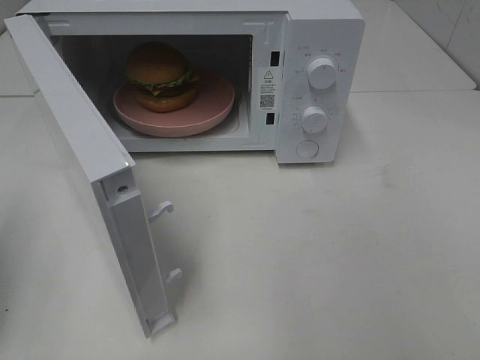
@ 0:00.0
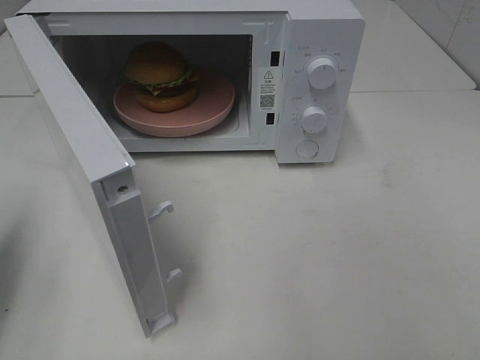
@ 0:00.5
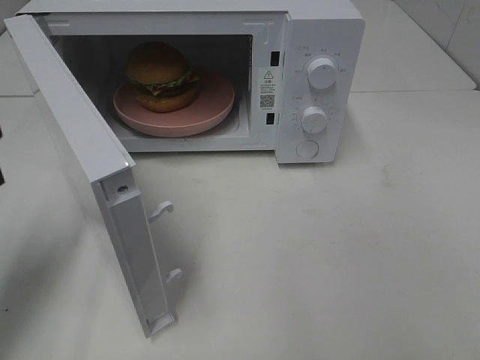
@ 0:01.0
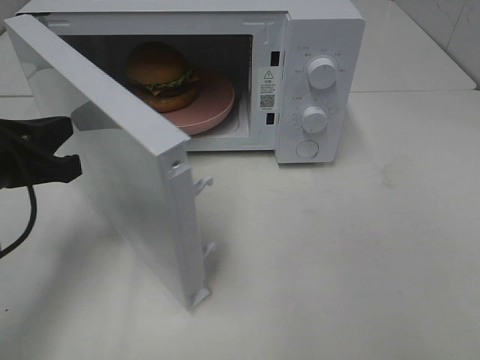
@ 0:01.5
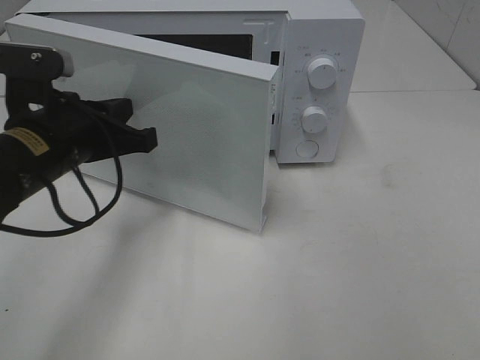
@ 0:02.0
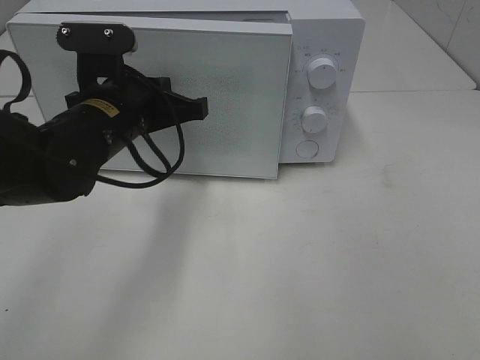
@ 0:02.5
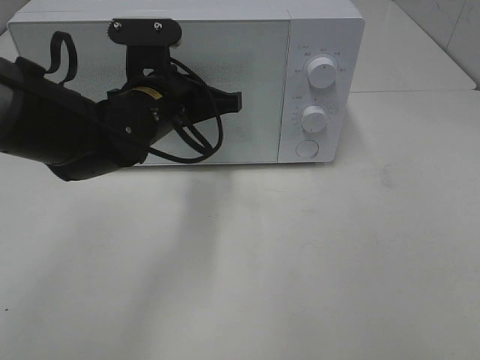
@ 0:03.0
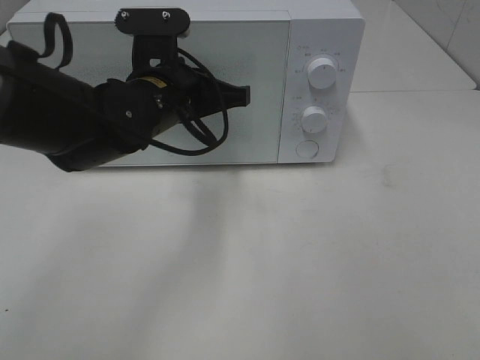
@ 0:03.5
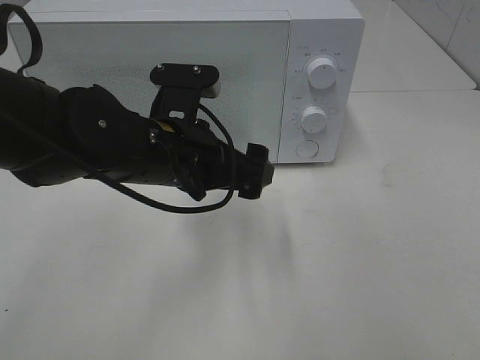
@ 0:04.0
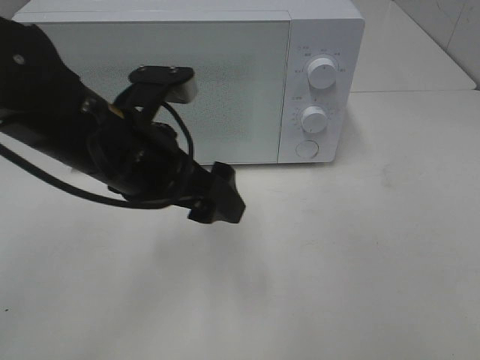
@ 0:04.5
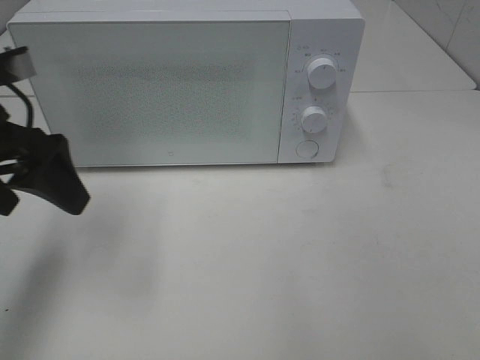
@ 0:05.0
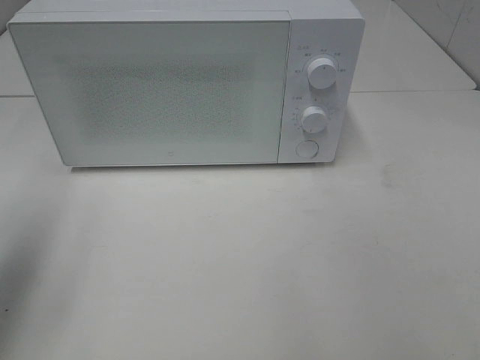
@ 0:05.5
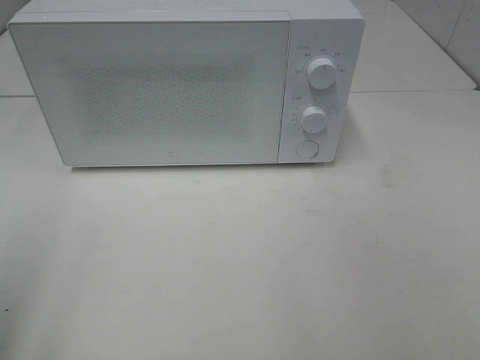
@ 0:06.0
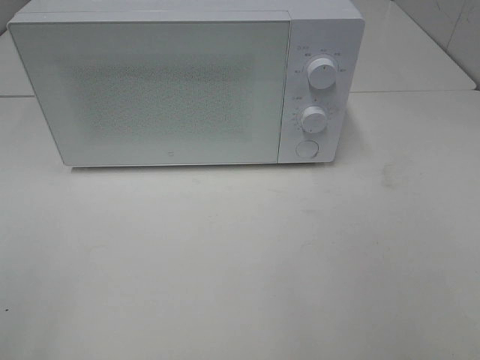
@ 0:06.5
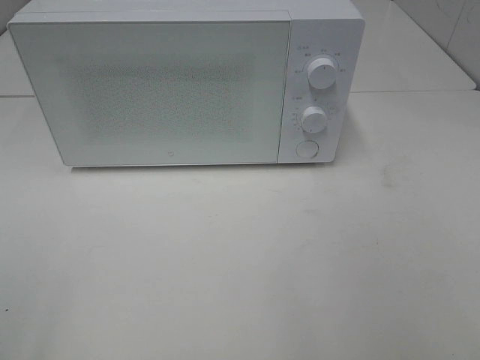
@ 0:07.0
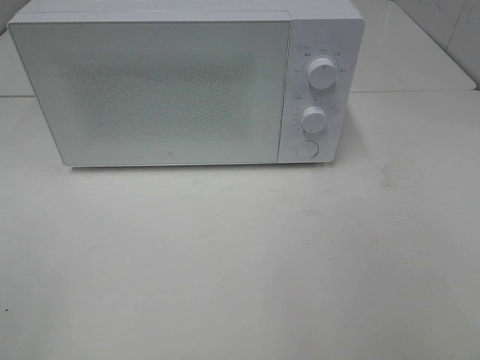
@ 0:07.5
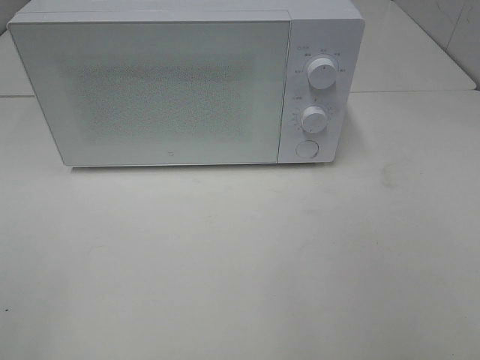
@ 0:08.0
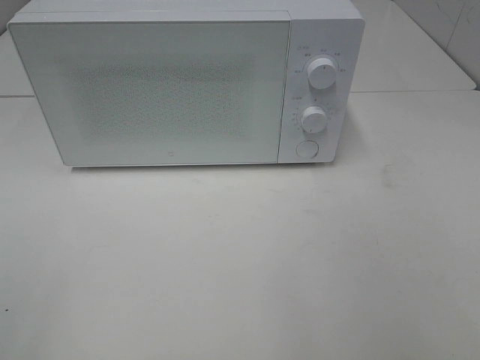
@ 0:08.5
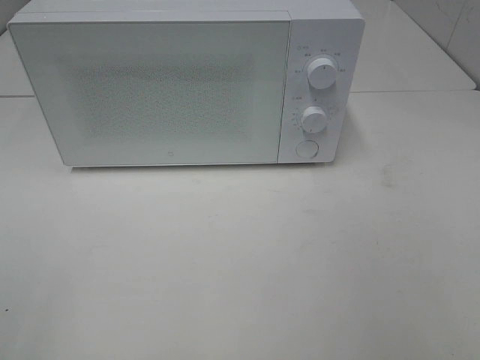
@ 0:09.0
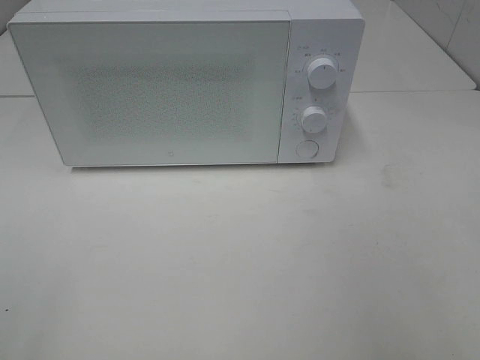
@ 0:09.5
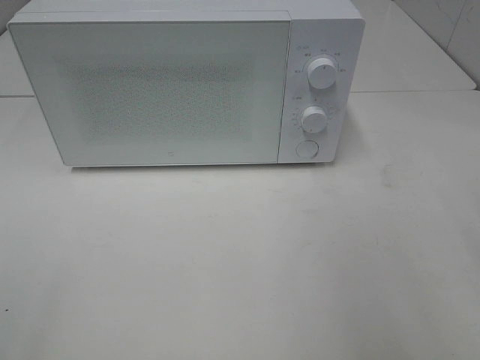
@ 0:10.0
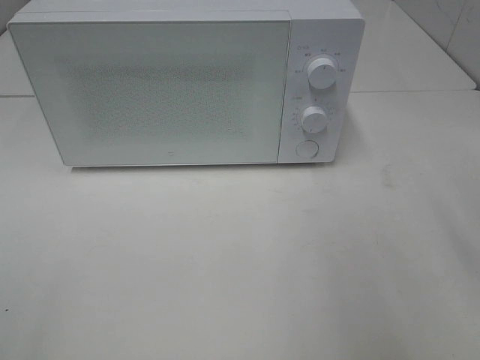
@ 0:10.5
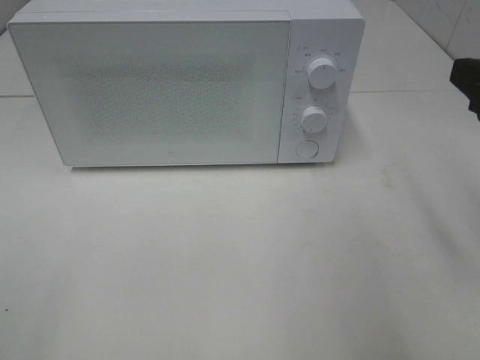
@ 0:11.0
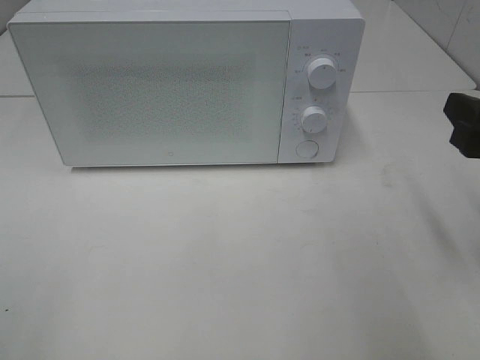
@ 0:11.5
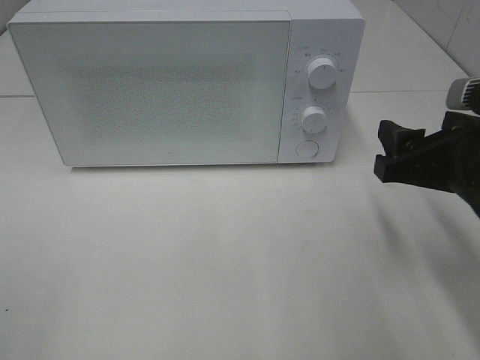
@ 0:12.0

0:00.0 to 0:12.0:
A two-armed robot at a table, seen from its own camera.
Task of the whole recording: Heat the burger.
Step, 0:00.0 to 0:04.0: Left hand: close the microwave door.
0:00.0 to 0:02.0: The left gripper is displaced to the right, forward and downward by roughly 25 cm.
0:02.0 to 0:04.0: The left gripper shifts roughly 10 cm to the right, and opens up.
0:04.0 to 0:06.0: The left gripper moves to the left, backward and upward, roughly 35 cm.
0:10.0 to 0:12.0: The right gripper shifts about 15 cm downward, forward and to the left.

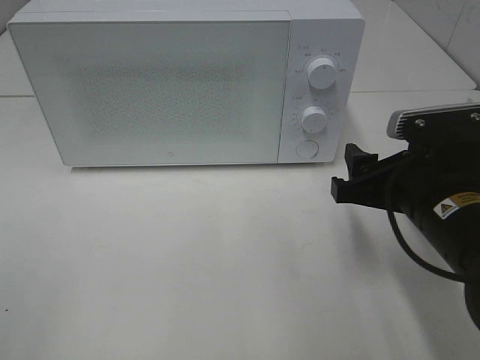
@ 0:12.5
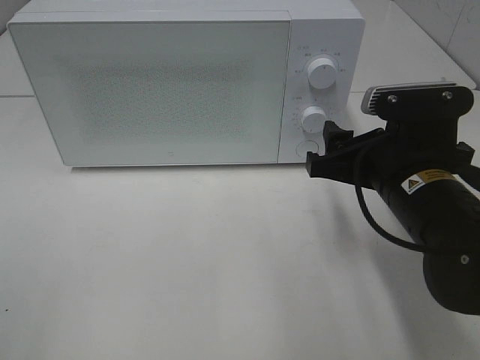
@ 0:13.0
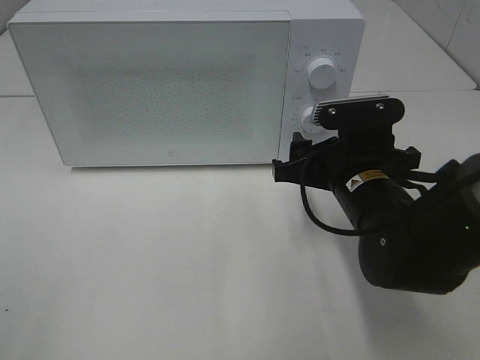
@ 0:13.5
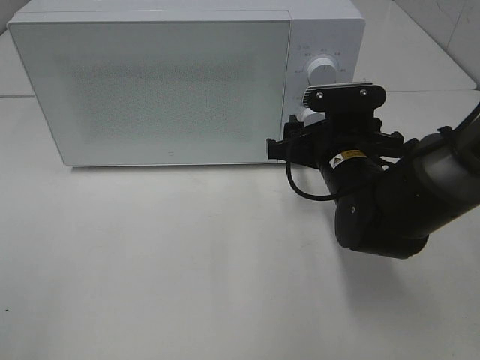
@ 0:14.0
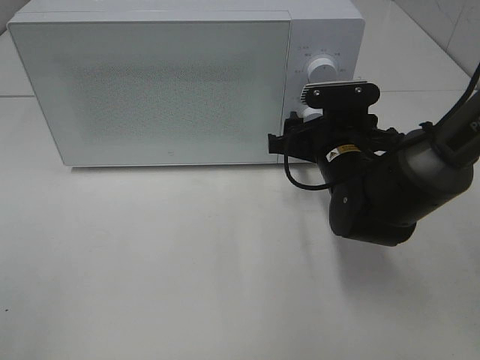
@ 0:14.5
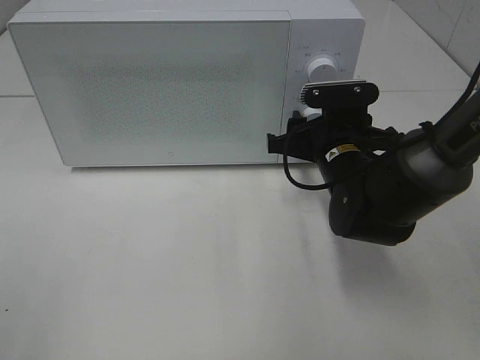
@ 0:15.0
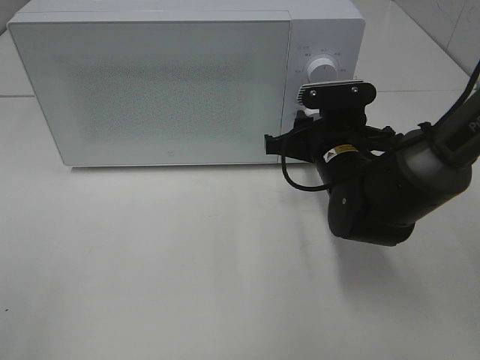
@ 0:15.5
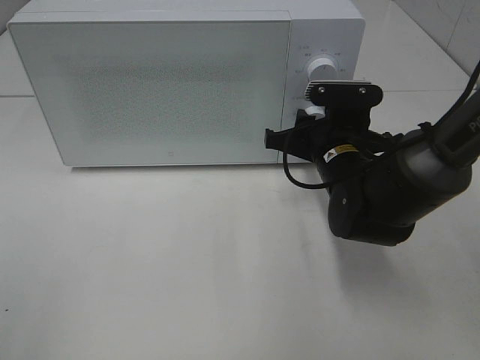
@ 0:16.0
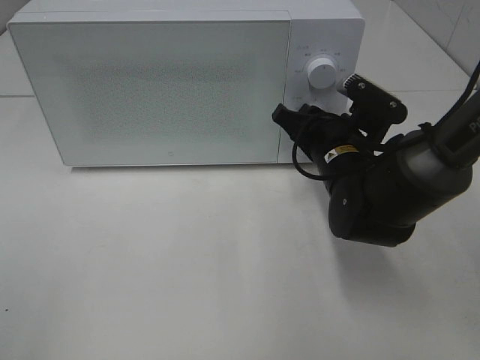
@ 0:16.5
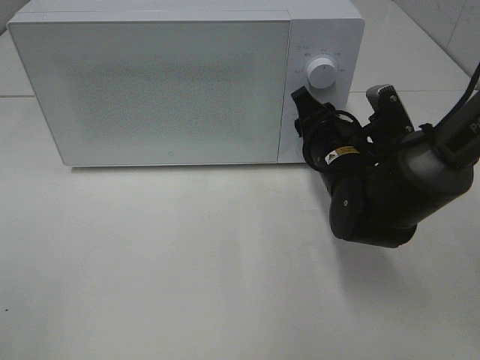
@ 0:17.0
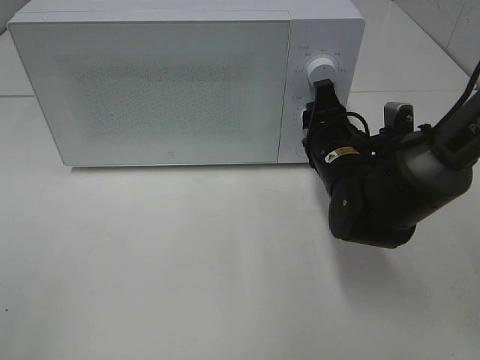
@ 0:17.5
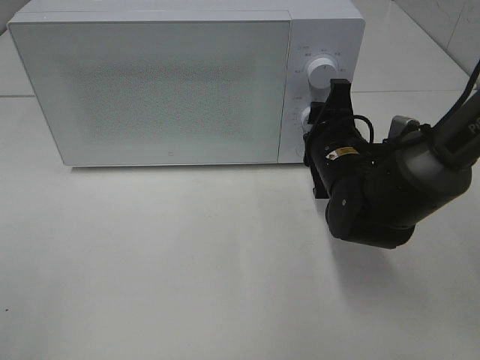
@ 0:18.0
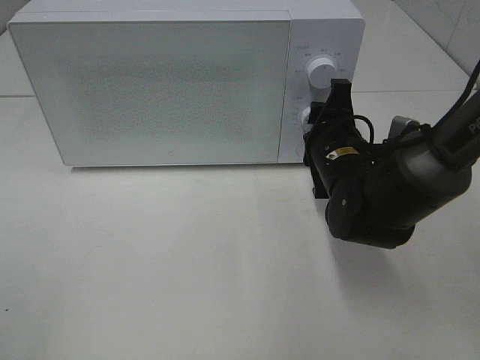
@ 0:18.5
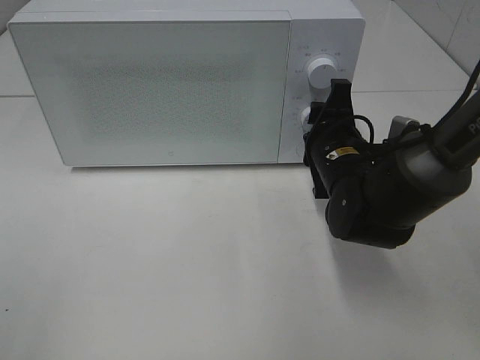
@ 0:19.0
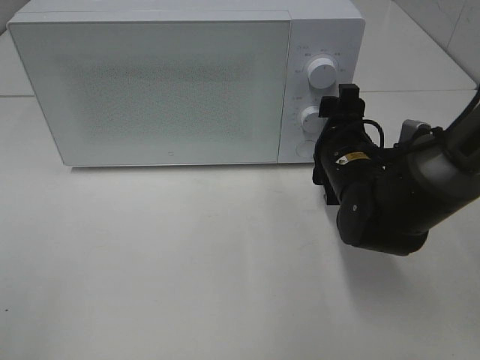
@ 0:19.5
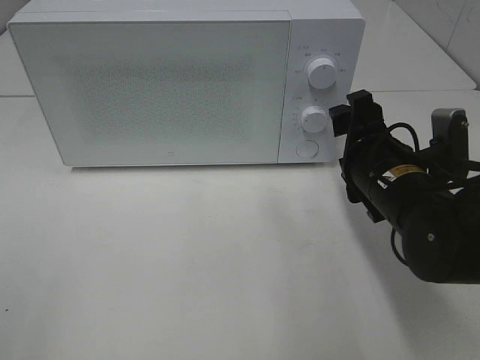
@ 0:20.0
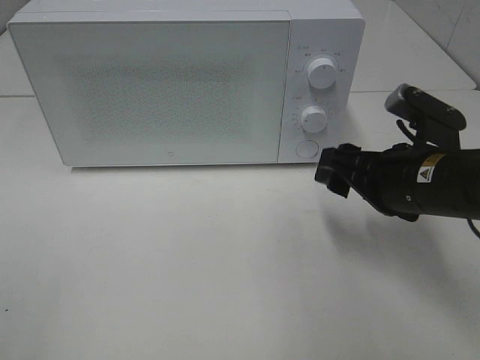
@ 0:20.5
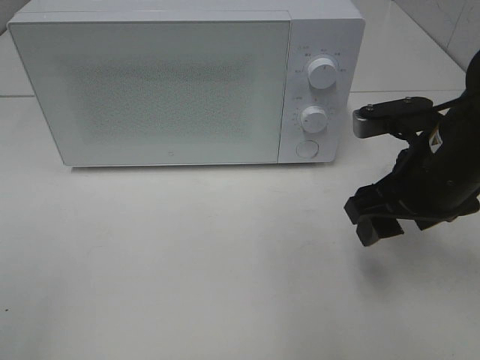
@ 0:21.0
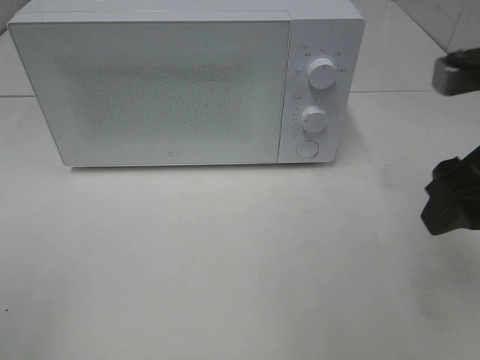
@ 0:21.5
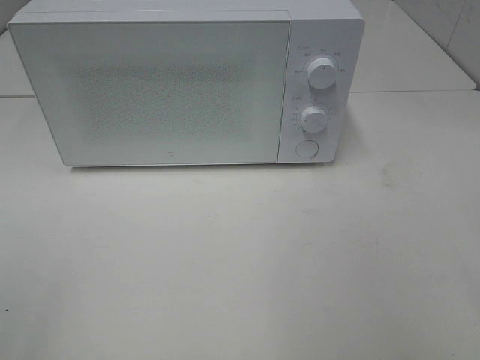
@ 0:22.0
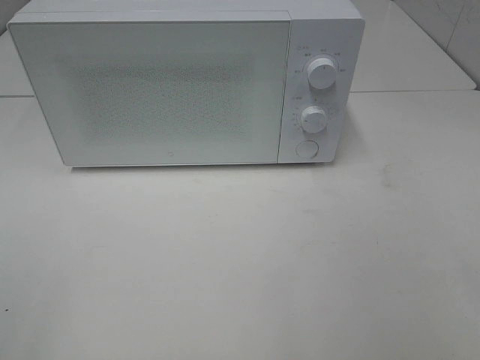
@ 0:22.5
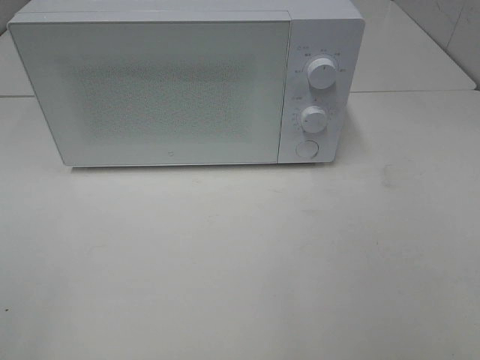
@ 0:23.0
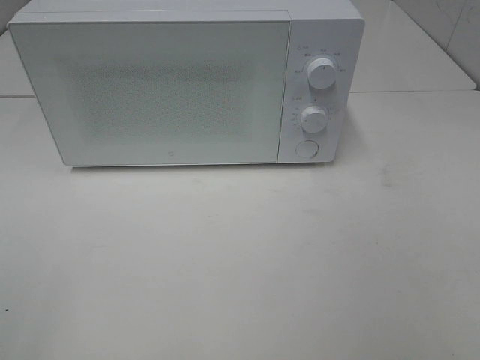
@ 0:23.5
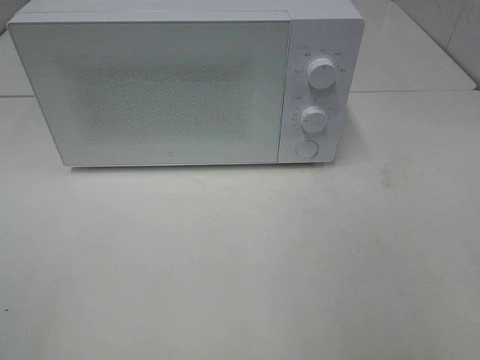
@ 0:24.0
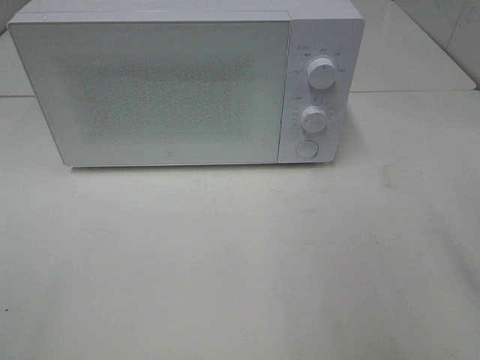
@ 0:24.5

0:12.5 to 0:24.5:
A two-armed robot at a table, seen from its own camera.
Task of the whole recording: Heat the burger.
Step, 0:12.5 to 0:19.5: Right hand: twist timer button.
0:12.5 to 0:14.5: The right gripper is displaced forward and to the left by approximately 15 cm.
0:18.5 to 0:20.5: The right gripper shifts about 10 cm backward and to the right.
0:20.5 to 0:22.5: The right gripper moves backward, upward and to the right, some 30 cm.

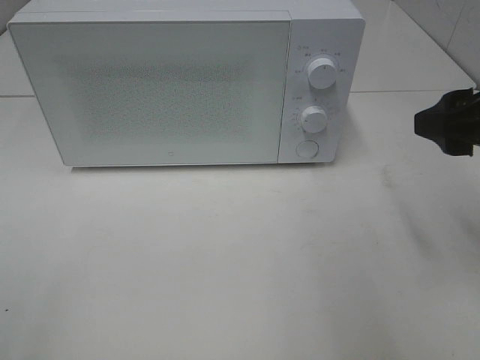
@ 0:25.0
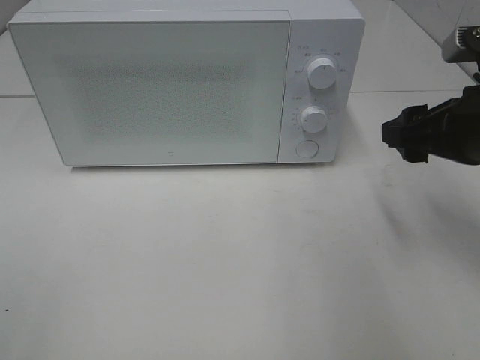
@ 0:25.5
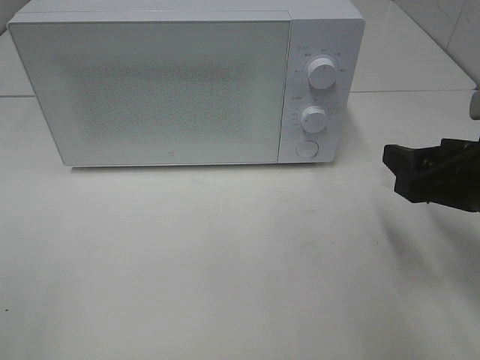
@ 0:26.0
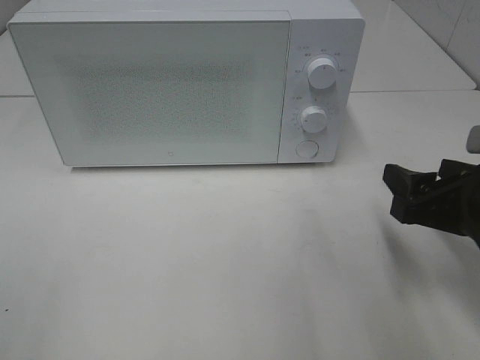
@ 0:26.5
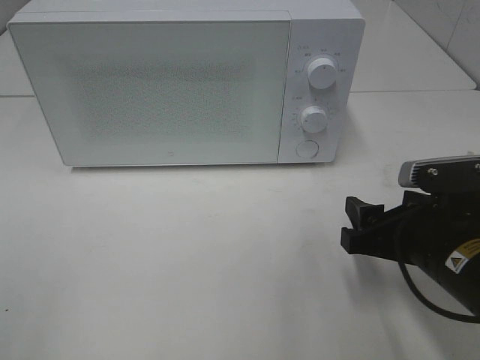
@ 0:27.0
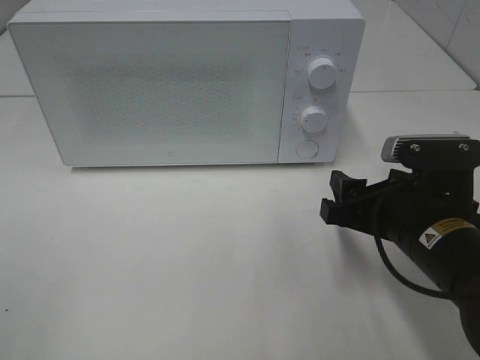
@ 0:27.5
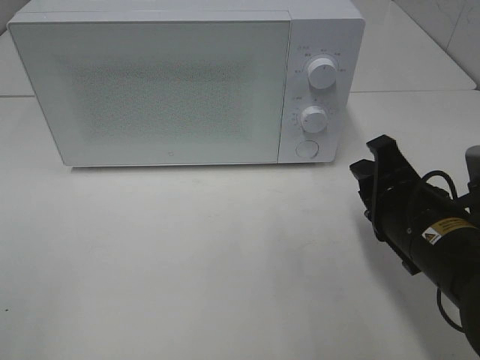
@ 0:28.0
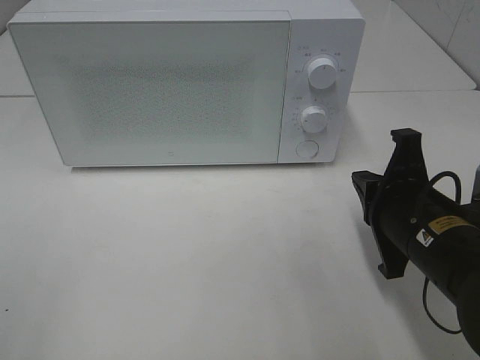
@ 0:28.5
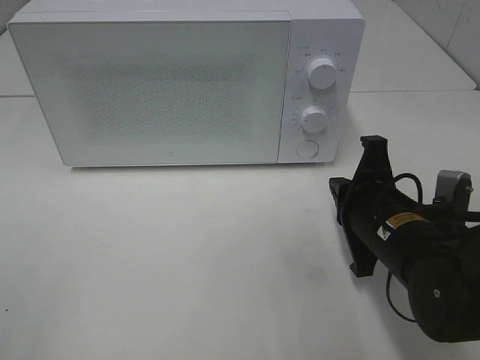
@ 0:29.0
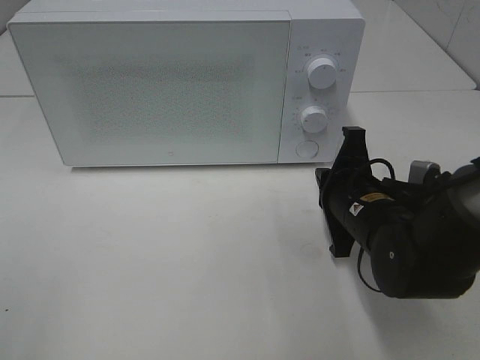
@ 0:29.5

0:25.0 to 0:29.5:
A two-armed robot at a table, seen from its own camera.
Task of the whole recording: Heat the burger.
0:25.0 to 0:27.0: The right gripper heads downward, covering roughly 15 cm.
0:27.0 to 0:29.5: The right gripper moves forward and to the left, some 10 cm, and closes its fingers.
